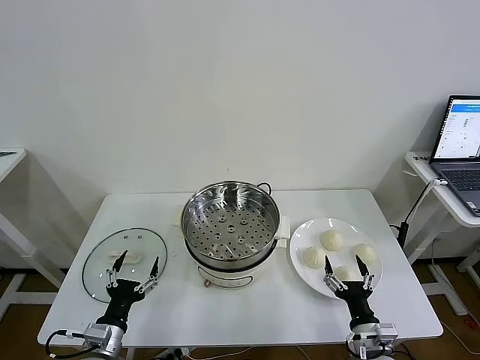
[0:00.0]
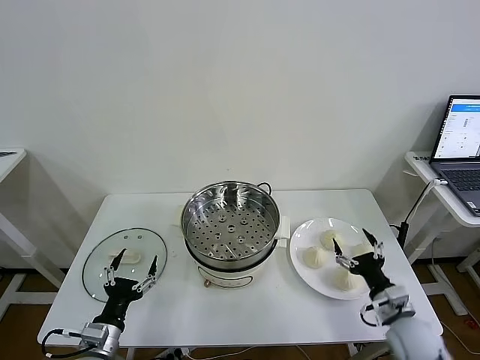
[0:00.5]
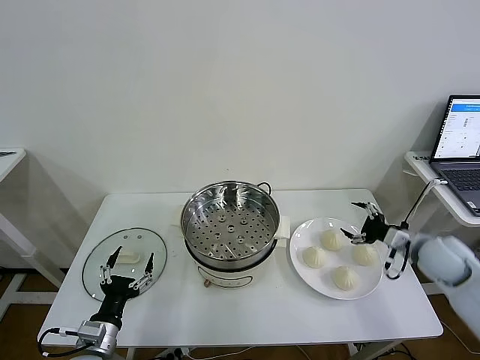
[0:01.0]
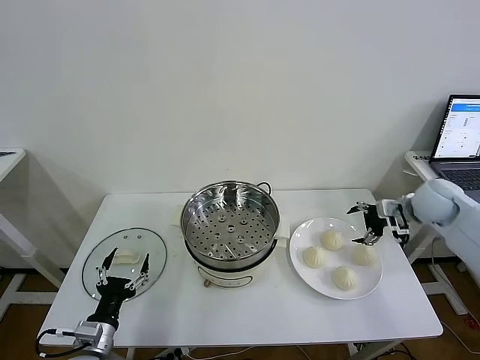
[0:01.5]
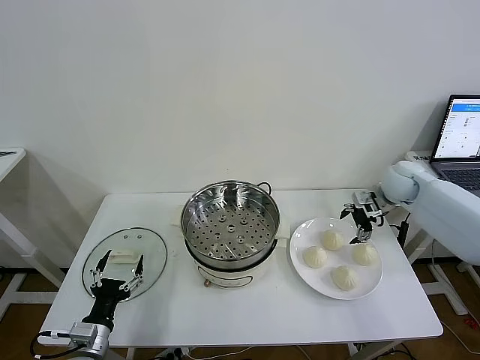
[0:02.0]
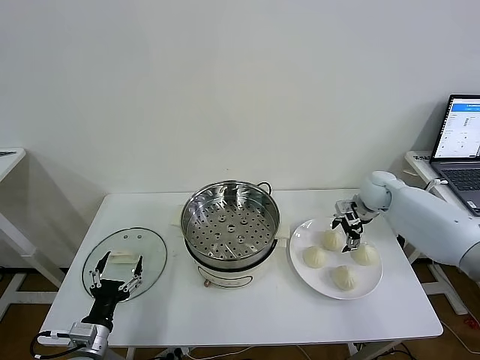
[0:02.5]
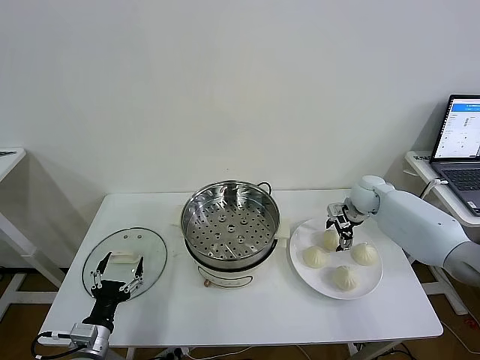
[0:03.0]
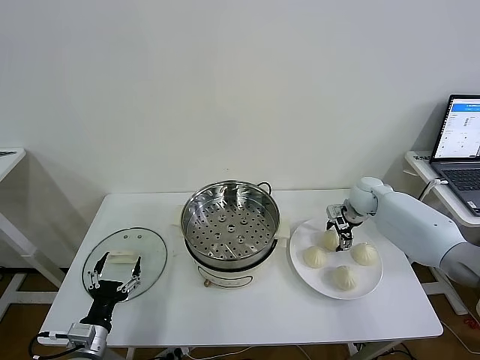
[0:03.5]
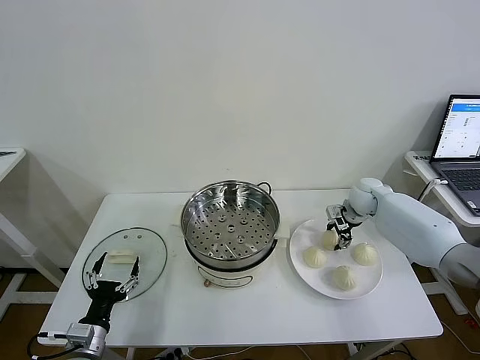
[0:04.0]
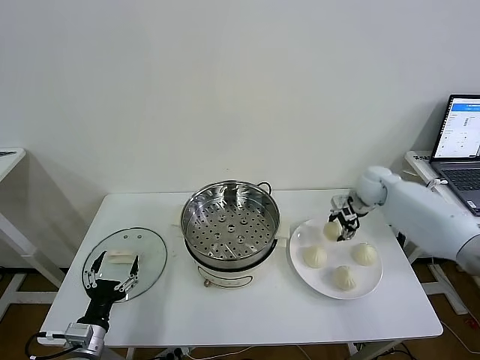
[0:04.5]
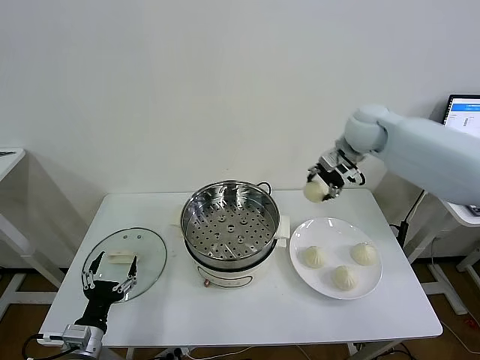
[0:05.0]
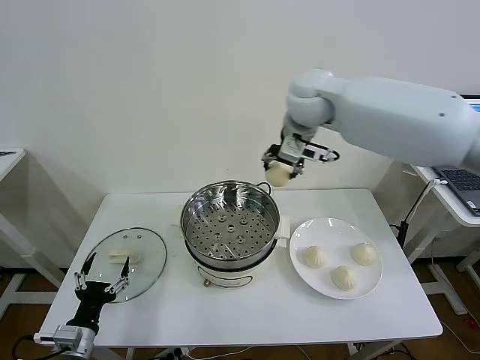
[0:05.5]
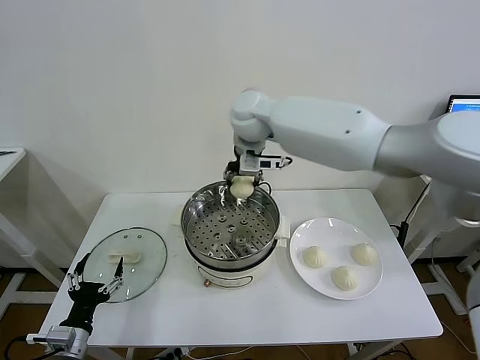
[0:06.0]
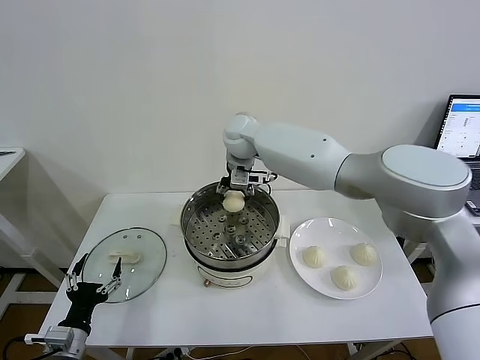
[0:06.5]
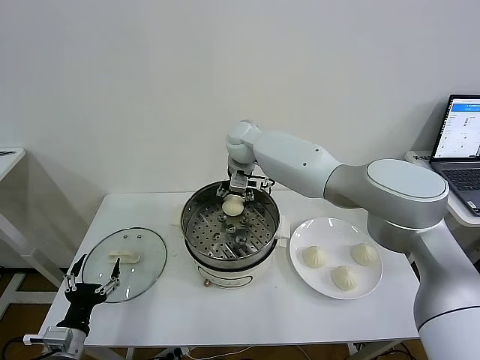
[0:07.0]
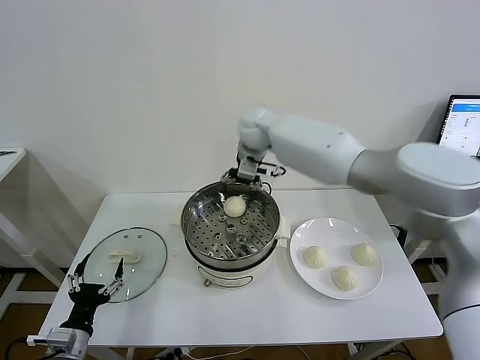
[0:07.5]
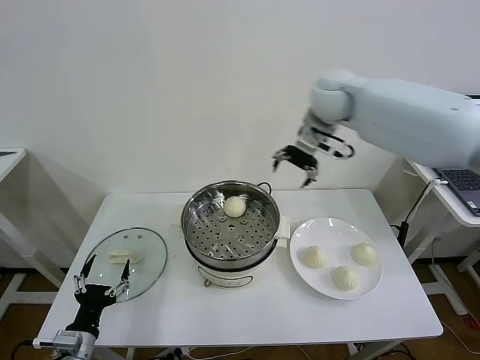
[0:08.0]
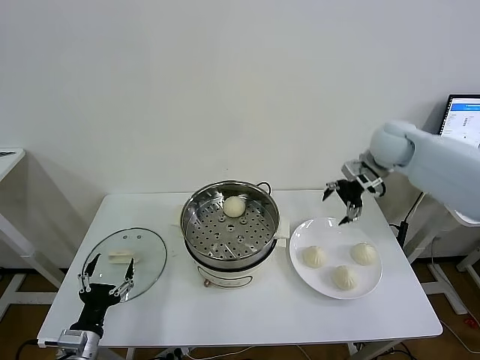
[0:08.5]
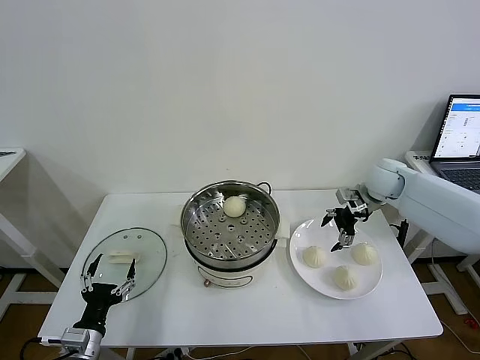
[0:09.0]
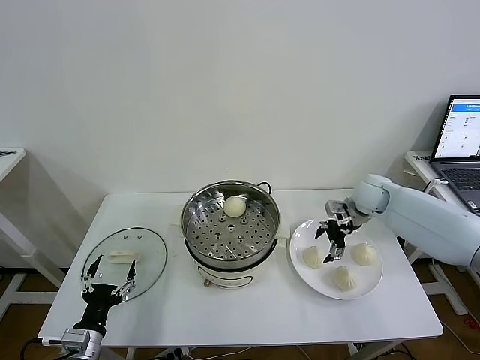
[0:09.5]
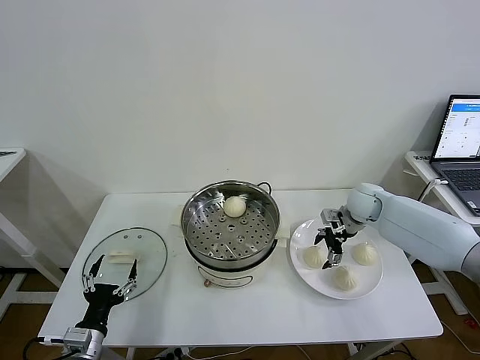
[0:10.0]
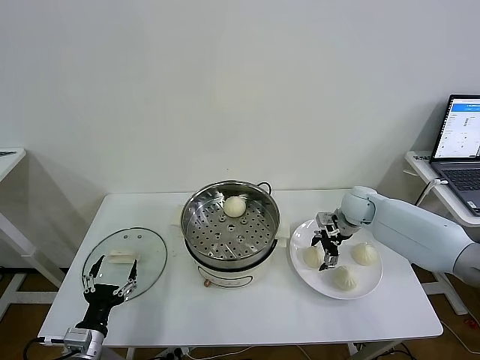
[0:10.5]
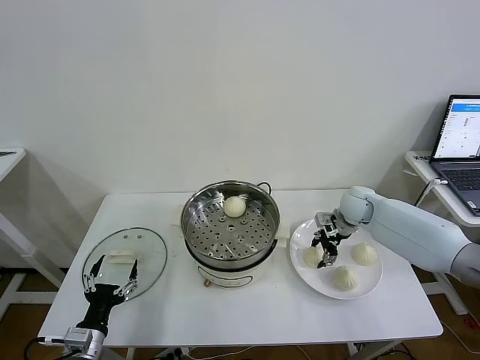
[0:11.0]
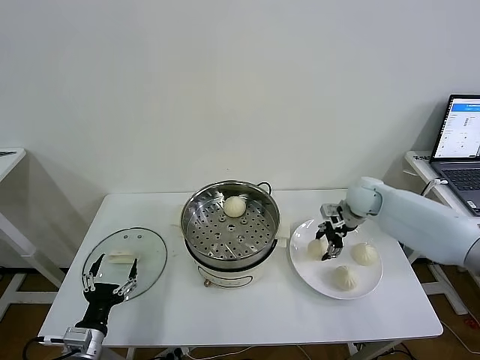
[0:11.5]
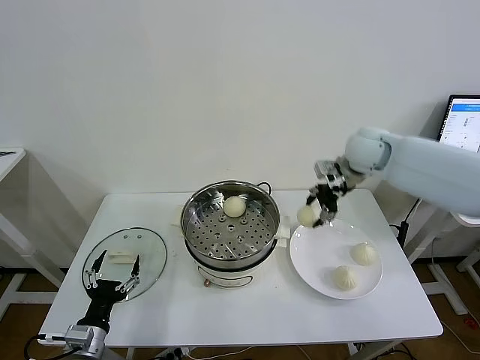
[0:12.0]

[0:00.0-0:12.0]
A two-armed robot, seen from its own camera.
Task of the whole recording: take steamed baozi put them in steamer then cover it.
Step, 0.0 to 4.0 s: Grasp the baozi in the plate with right gripper.
Step, 4.5 to 7.0 s: Place the baozi on the steamer with right gripper.
Step, 7.5 to 11.0 s: Grasp the baozi in the plate with right gripper.
2.0 to 4.0 s: The right gripper is displaced downward by some 5 cm, and closes up.
4.0 to 6.0 s: The right gripper goes roughly 40 cm to the left and upward.
6.0 to 8.0 s: The right gripper travels to the right by about 20 cm, and opens.
8.0 to 10.0 s: The right gripper goes roughly 25 cm downward.
10.0 to 12.0 s: The right gripper is displaced upward by about 20 cm, and closes up.

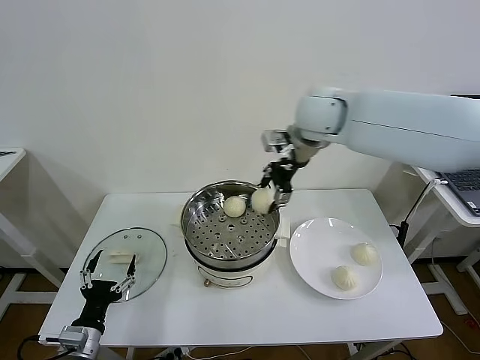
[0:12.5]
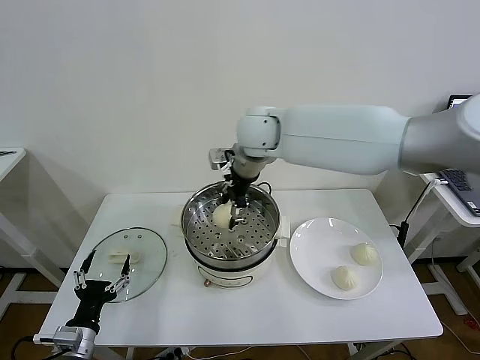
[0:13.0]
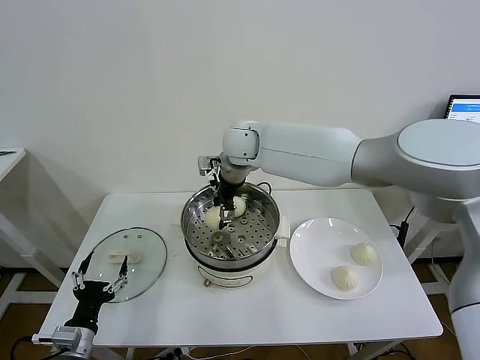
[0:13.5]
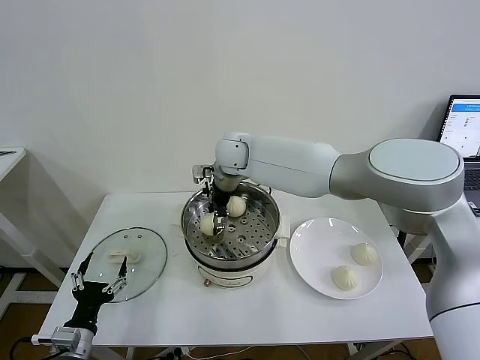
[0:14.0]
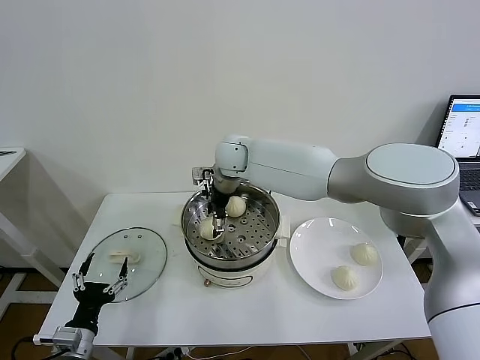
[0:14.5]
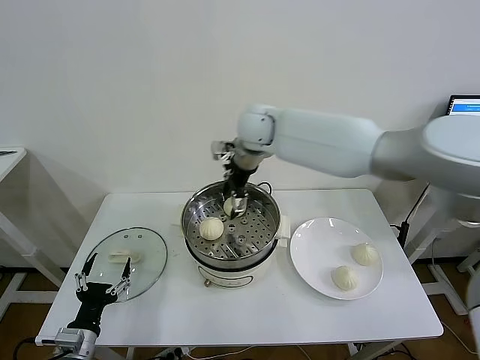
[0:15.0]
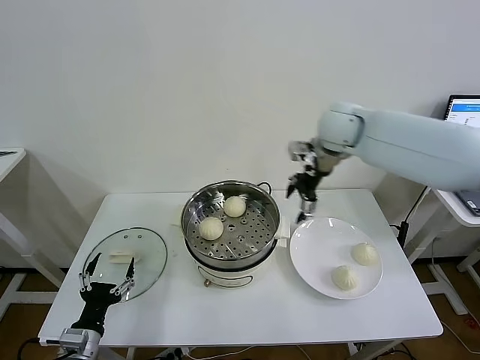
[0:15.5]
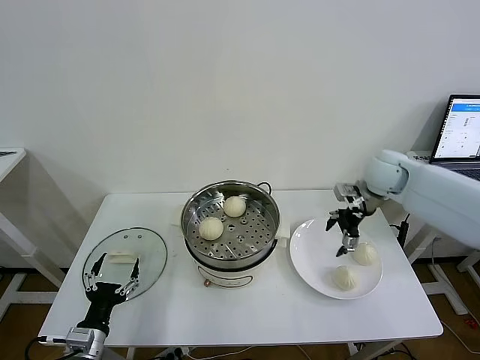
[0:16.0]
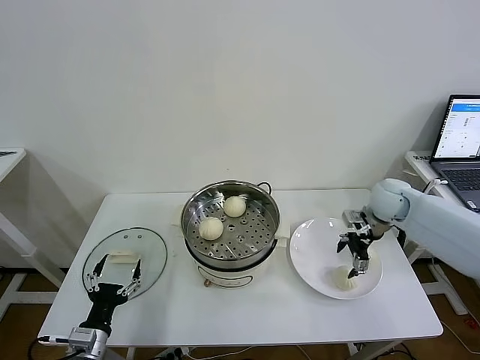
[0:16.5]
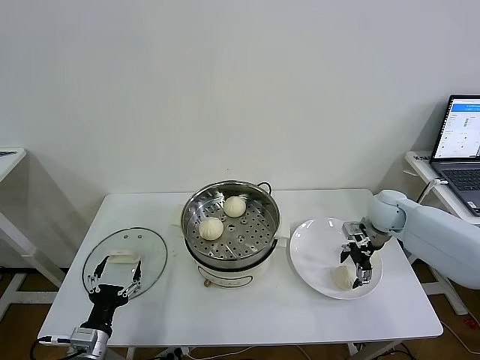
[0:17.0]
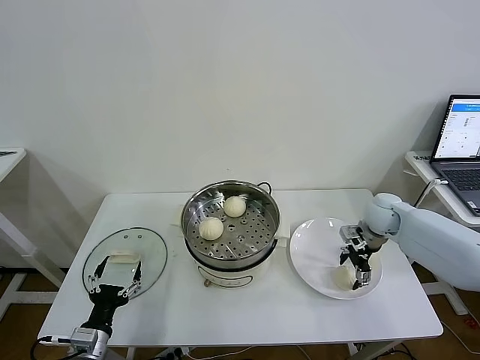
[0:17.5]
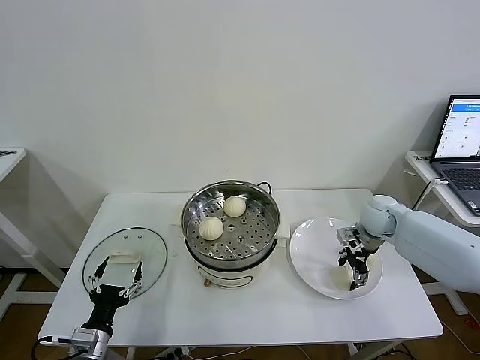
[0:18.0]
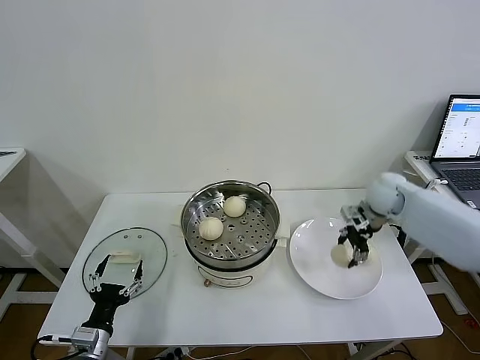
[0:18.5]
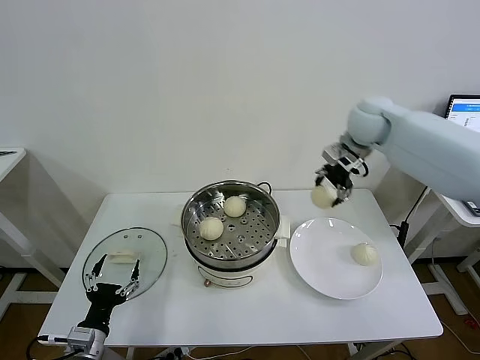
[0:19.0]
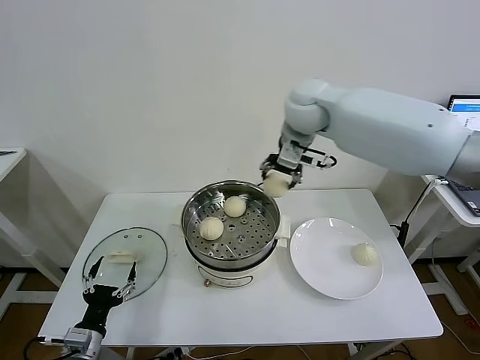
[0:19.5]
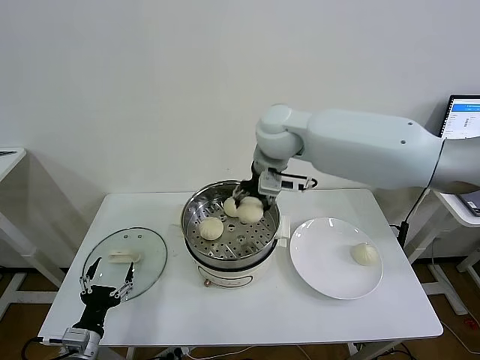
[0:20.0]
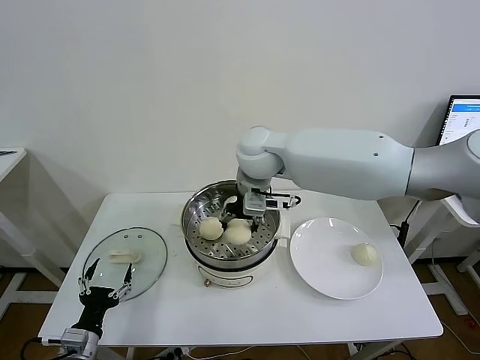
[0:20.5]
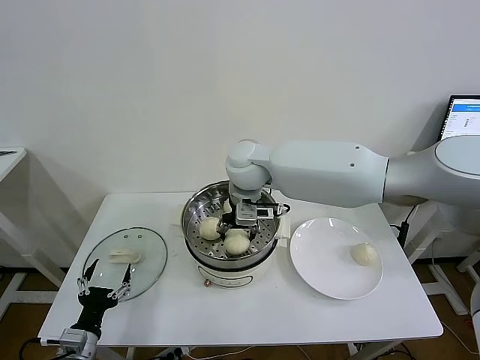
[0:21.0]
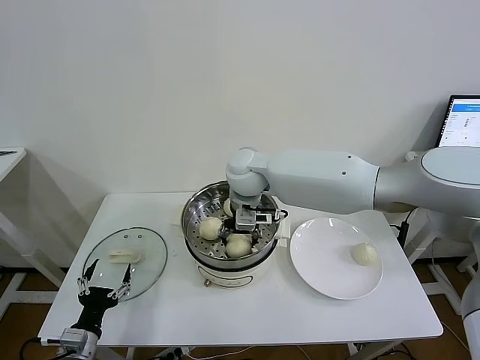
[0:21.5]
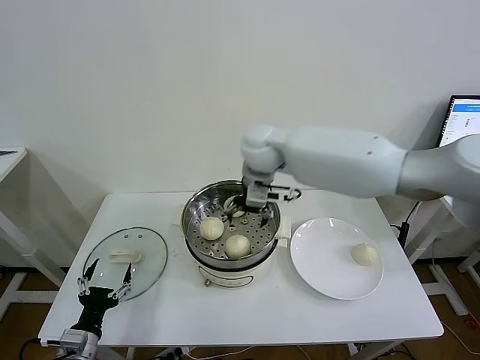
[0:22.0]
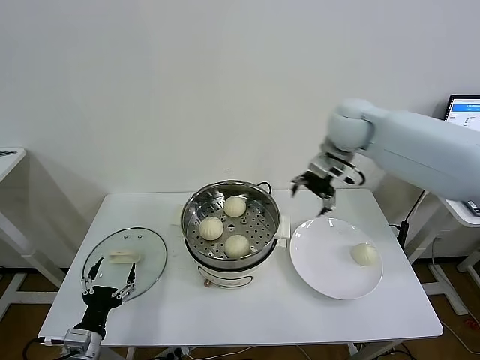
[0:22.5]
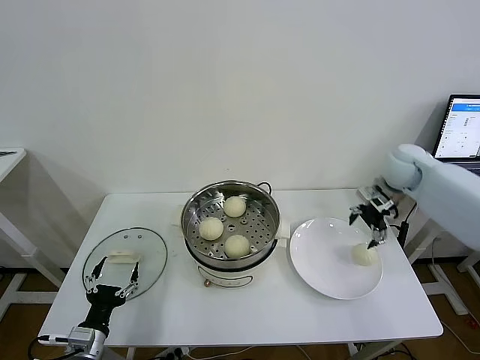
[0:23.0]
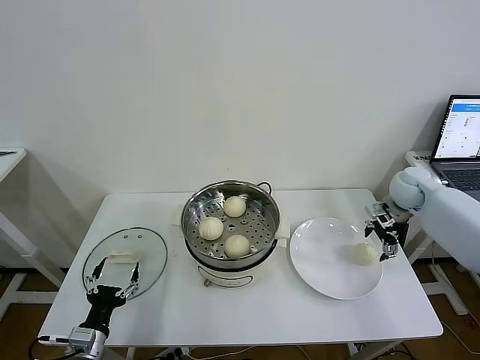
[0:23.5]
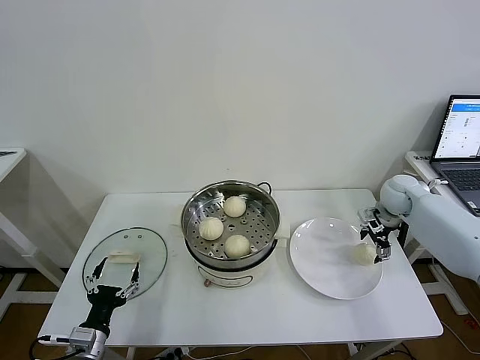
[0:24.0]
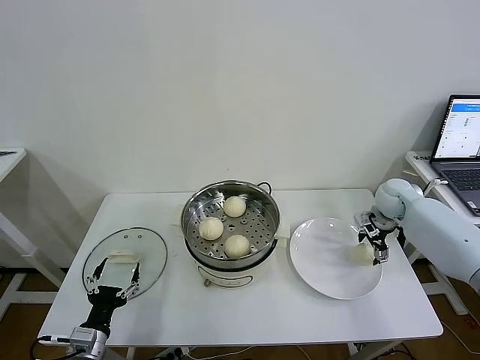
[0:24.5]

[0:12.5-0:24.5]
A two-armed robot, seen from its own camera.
Task of the whole recording: take steamed baozi put them in steamer then cover it.
Step, 12.5 to 14.5 s: Place the baozi on the steamer with right gripper.
Step, 15.0 to 17.5 s: Grasp the baozi in the plate with right gripper.
Step, 18.0 to 21.5 s: Place the baozi on the steamer with right gripper.
12.5 to 14.5 s: The right gripper shifts some 20 cm to the left and downward, and opens up.
14.5 to 16.5 s: The right gripper goes roughly 40 cm to the right.
16.5 to 18.5 s: The right gripper closes.
18.5 to 20.5 s: The right gripper is displaced to the left by approximately 30 cm.
20.5 to 22.5 s: The right gripper shifts some 20 cm to the right, and opens up.
22.5 to 24.5 s: The right gripper heads downward and to the right, covering roughly 25 cm.

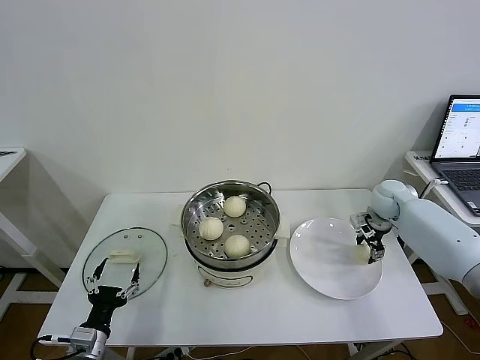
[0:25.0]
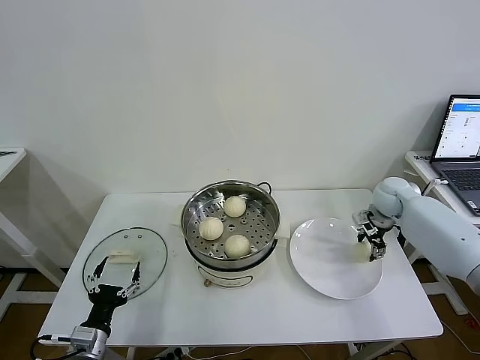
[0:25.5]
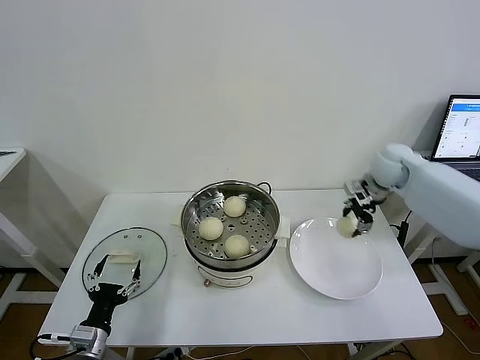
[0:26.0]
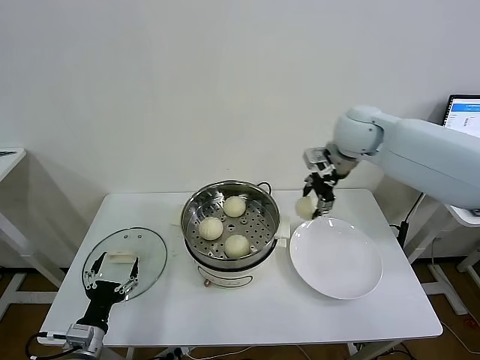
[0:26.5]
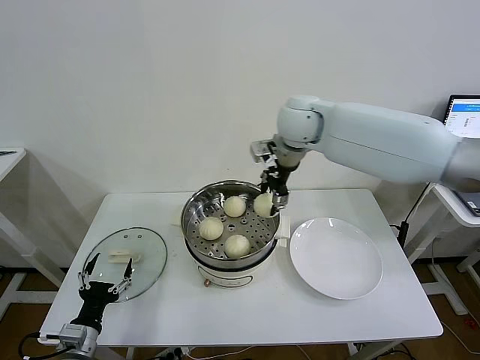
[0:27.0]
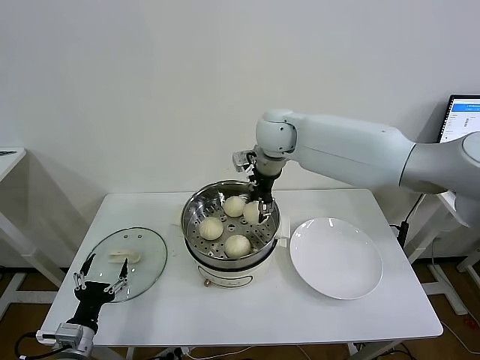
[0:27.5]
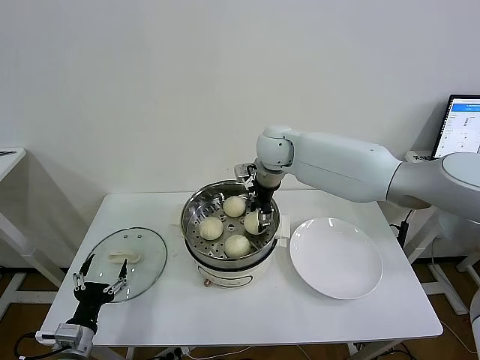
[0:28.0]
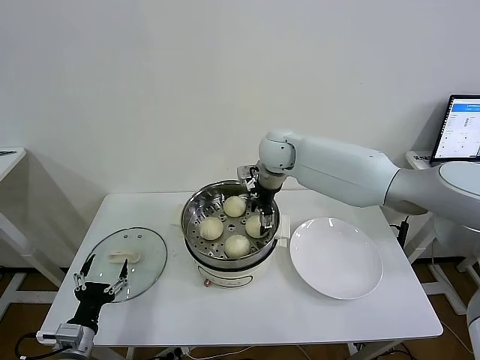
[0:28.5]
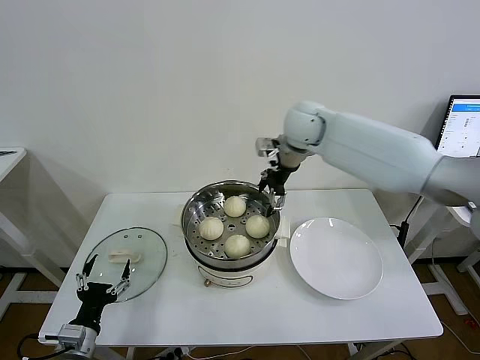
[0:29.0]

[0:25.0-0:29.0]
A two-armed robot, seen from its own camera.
Task of the whole recording: take steamed baozi put them in steamer then cover it.
Step, 25.5 to 28.5 s: Place the baozi on the steamer with right gripper.
25.0 to 27.0 s: The right gripper shifts roughly 35 cm to the left and upward.
27.0 to 29.0 s: The right gripper moves about 10 cm downward and comes back, and opens up.
